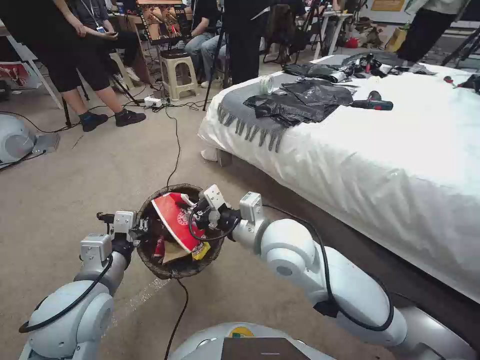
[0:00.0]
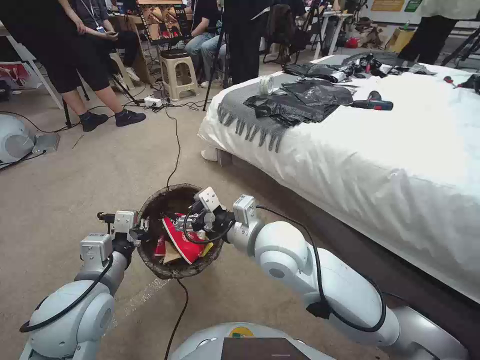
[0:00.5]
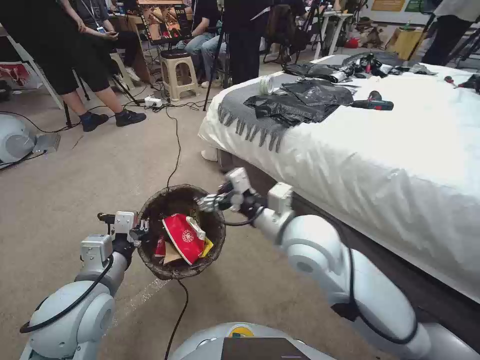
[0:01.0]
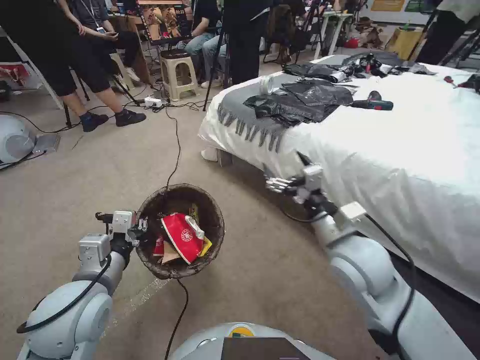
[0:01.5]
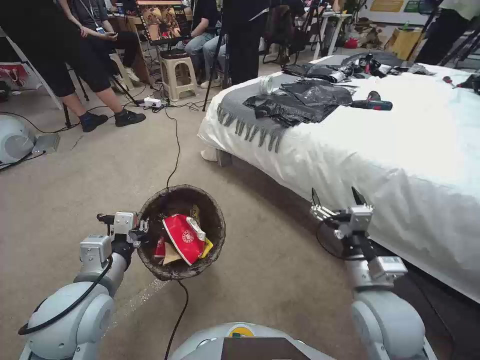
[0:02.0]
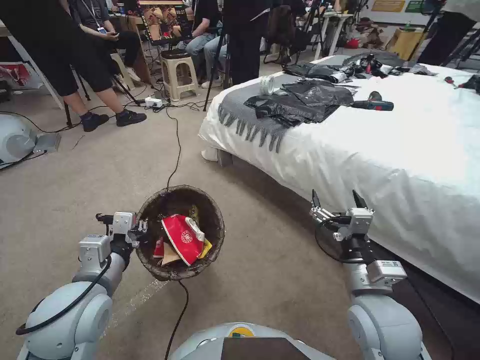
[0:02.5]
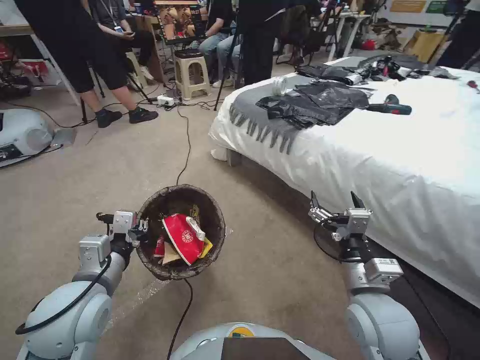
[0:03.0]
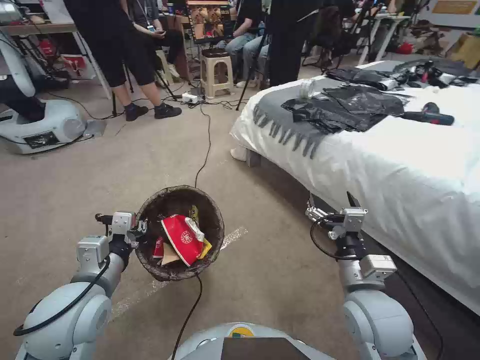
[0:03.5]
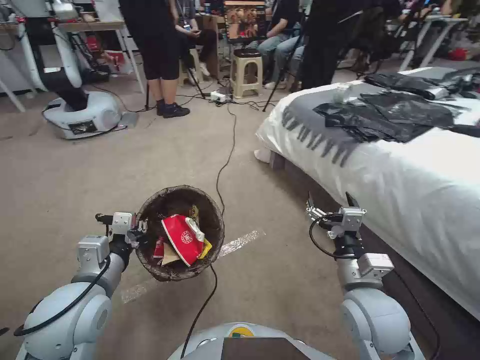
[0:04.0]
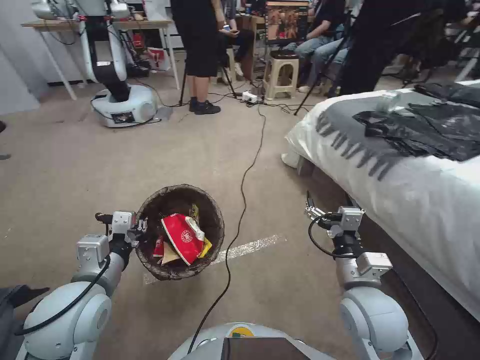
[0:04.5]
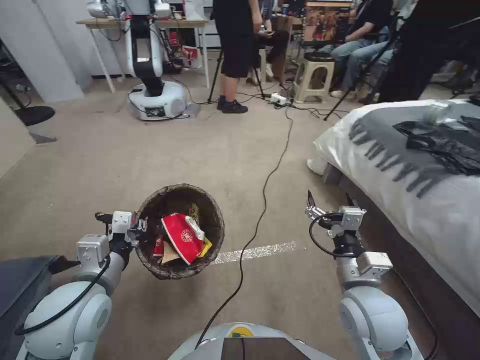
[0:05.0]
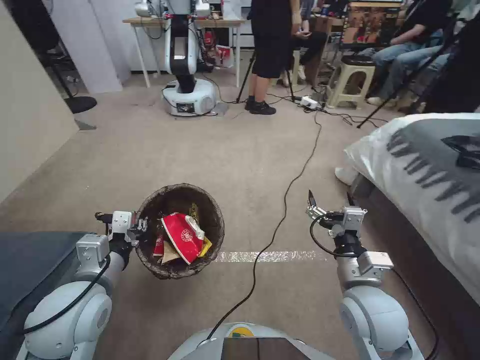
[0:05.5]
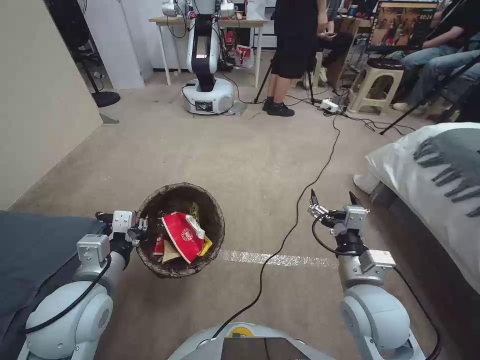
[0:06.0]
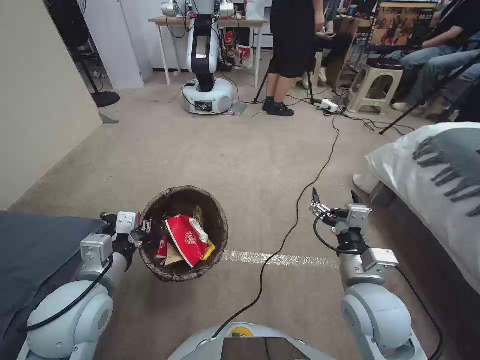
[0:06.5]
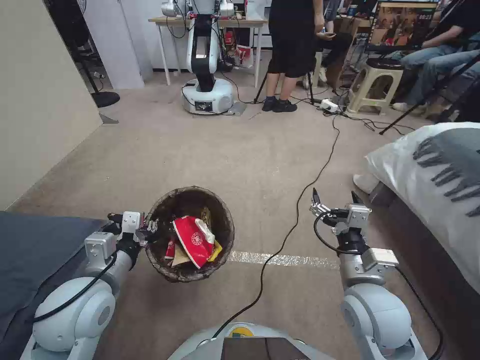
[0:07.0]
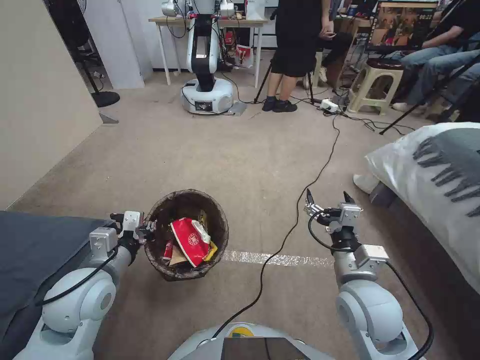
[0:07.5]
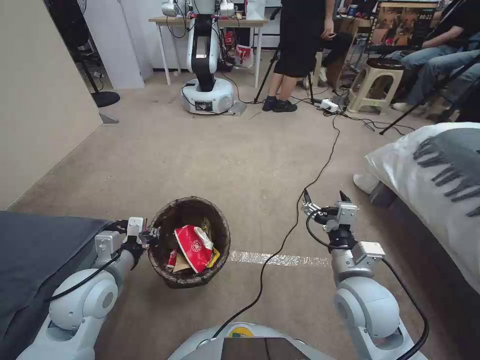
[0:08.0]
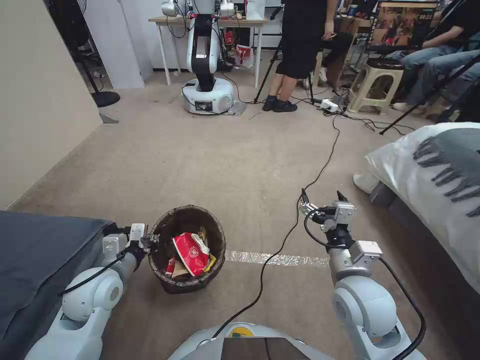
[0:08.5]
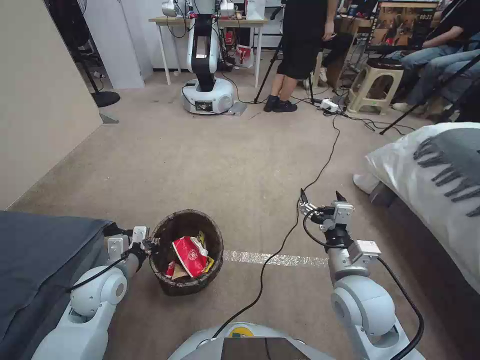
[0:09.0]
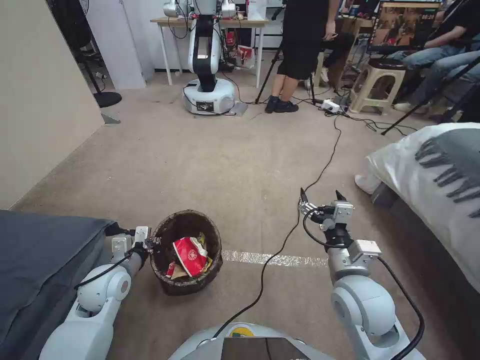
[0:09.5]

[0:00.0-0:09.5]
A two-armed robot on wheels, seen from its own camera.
Task of the whole recording: Pick up the trash bin, then pick up the garbage from the floor and place it into the trash bin.
0:00.0 to 0:02.0: The right gripper goes about 20 cm to the right, backward and downward, and opens its fingers.
0:07.5 to 0:09.5: The left gripper goes roughly 10 cm downward.

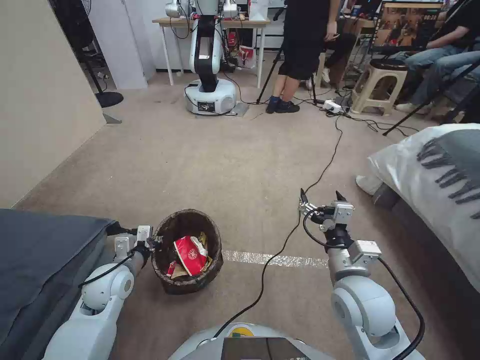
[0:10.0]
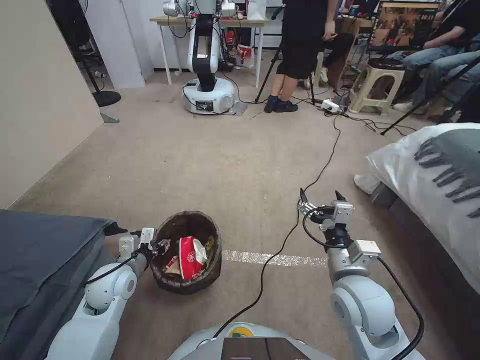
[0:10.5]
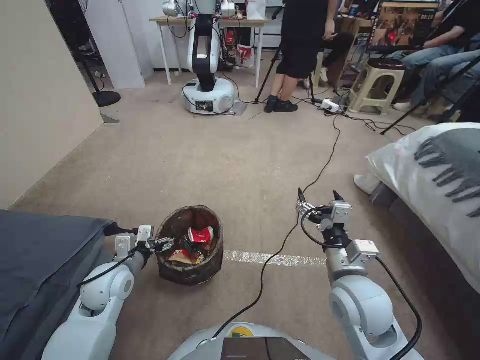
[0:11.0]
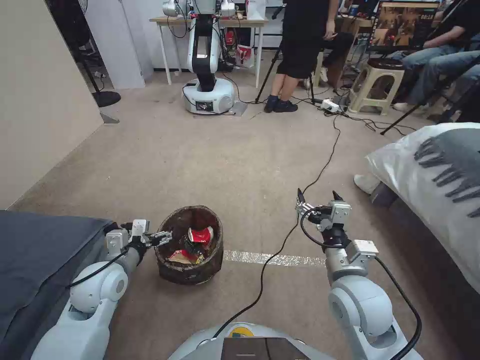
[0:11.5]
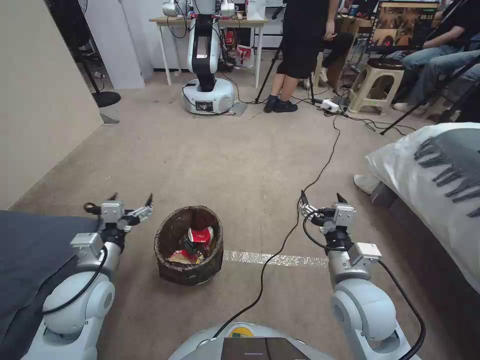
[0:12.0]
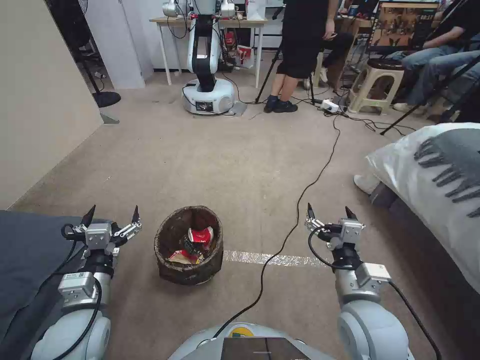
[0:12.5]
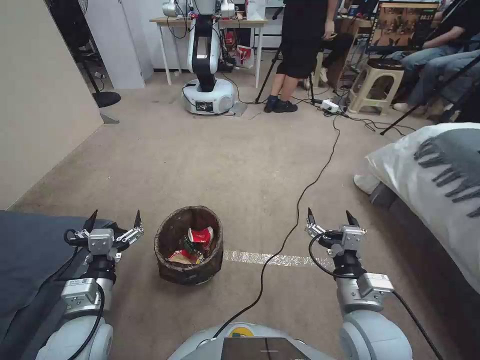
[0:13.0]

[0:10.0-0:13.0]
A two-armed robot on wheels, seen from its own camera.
Task of the whole recording: Pick up the trash bin, then pick up the garbage from the floor and place it into the trash bin.
0:10.0 to 0:11.5: The left gripper opens up.
0:11.5 to 0:13.0: The left gripper moves backward, approximately 10 cm, while the right gripper shifts approximately 5 cm backward.
